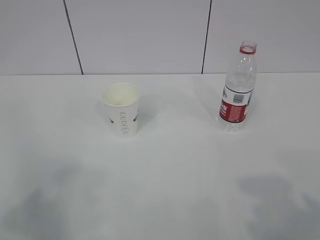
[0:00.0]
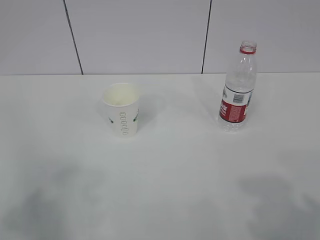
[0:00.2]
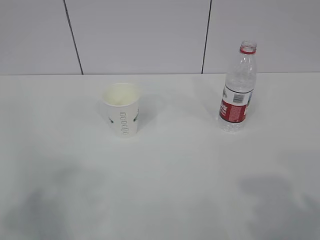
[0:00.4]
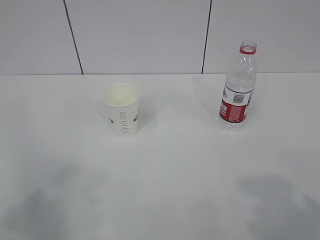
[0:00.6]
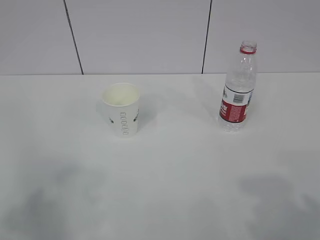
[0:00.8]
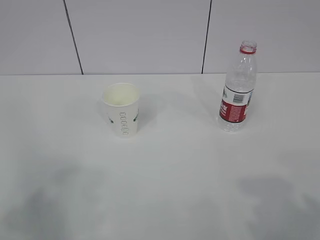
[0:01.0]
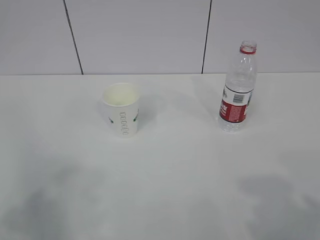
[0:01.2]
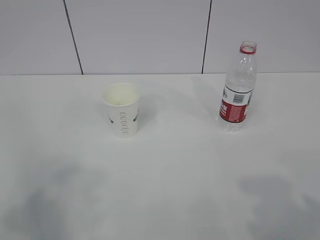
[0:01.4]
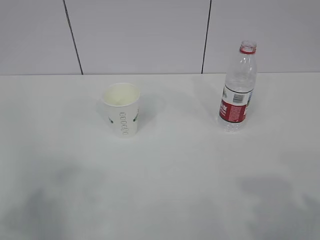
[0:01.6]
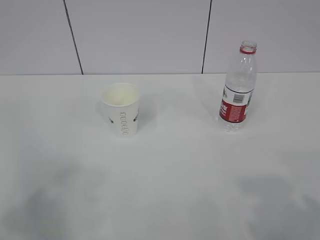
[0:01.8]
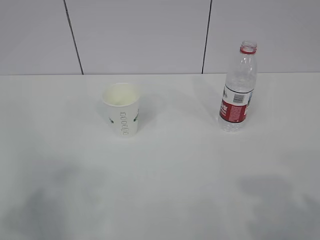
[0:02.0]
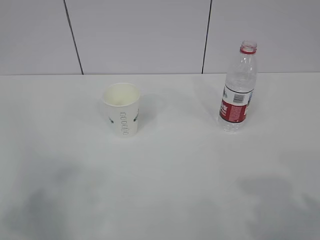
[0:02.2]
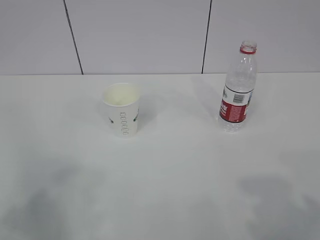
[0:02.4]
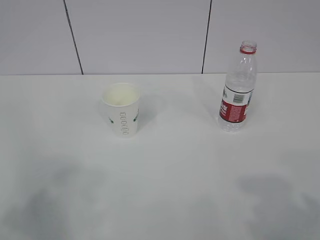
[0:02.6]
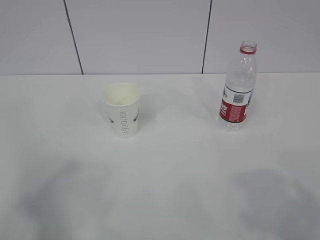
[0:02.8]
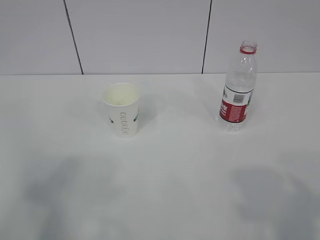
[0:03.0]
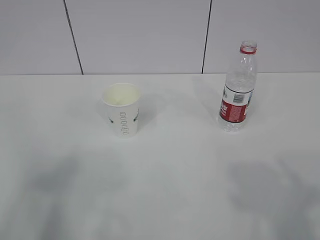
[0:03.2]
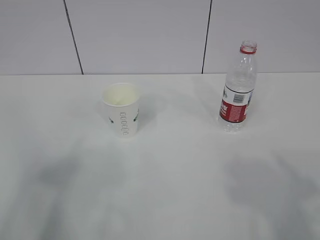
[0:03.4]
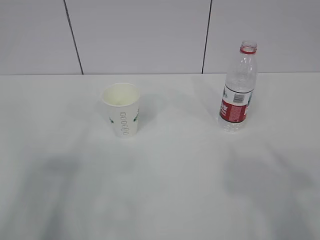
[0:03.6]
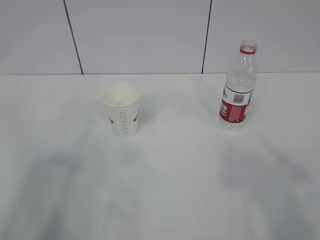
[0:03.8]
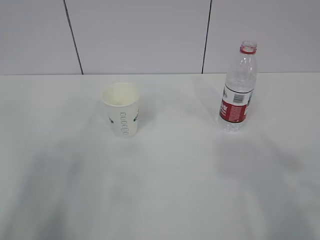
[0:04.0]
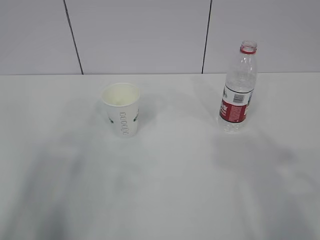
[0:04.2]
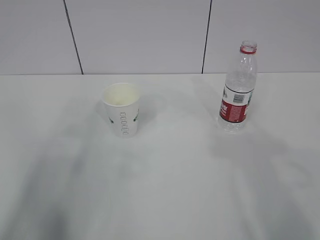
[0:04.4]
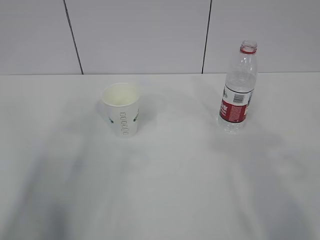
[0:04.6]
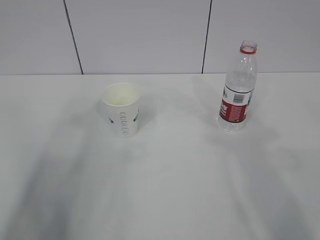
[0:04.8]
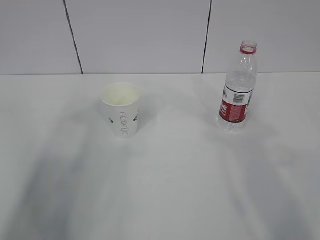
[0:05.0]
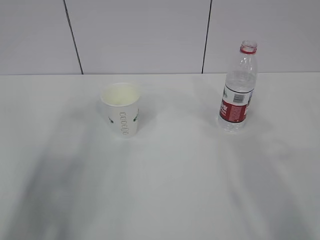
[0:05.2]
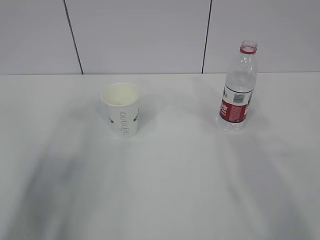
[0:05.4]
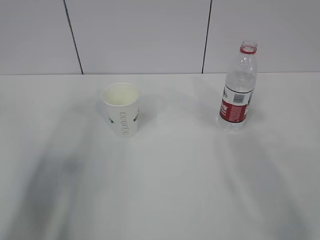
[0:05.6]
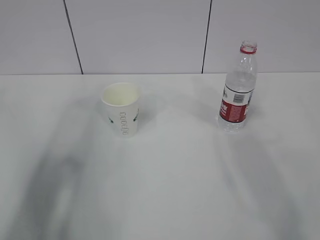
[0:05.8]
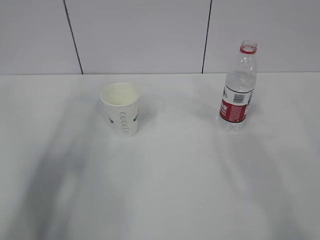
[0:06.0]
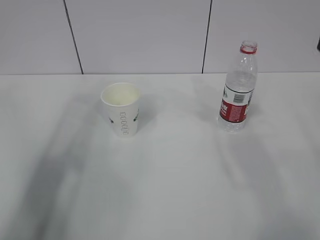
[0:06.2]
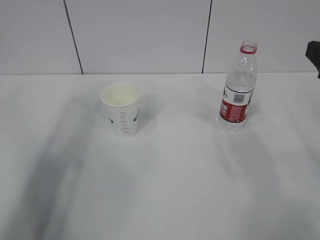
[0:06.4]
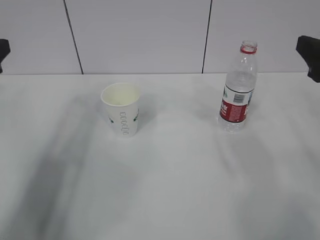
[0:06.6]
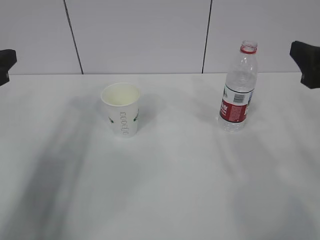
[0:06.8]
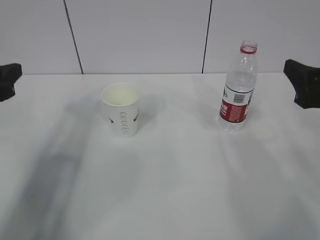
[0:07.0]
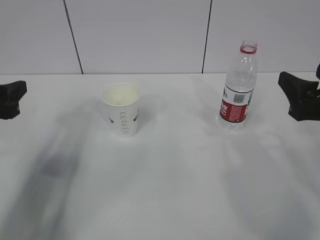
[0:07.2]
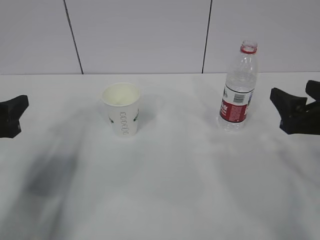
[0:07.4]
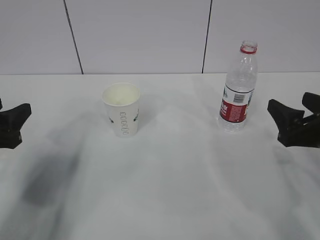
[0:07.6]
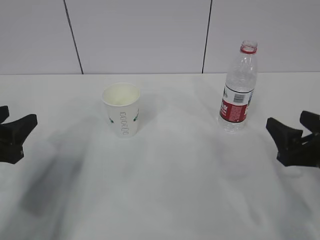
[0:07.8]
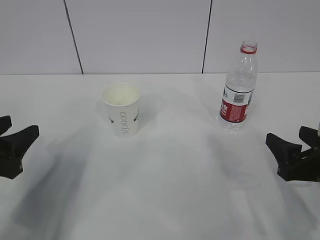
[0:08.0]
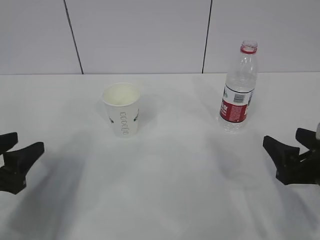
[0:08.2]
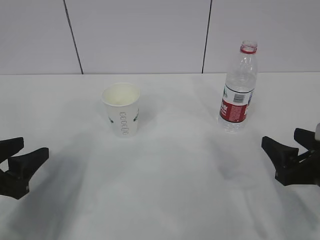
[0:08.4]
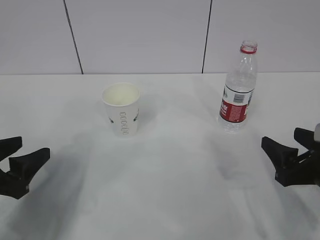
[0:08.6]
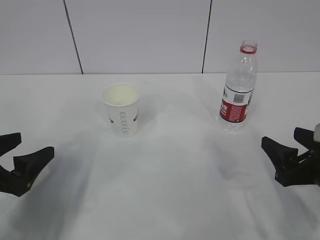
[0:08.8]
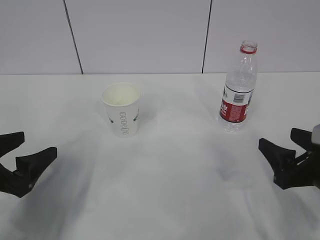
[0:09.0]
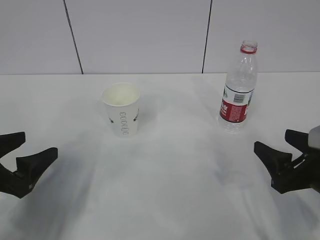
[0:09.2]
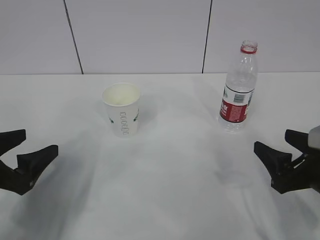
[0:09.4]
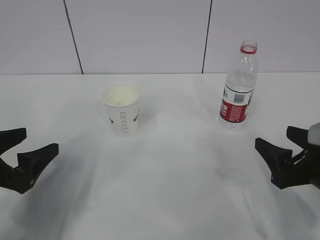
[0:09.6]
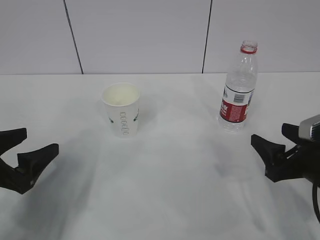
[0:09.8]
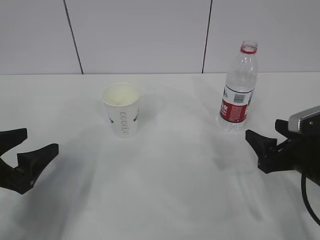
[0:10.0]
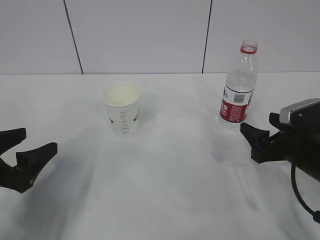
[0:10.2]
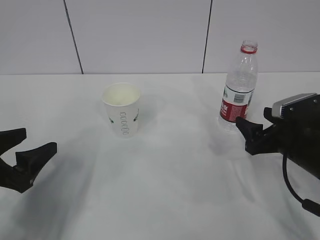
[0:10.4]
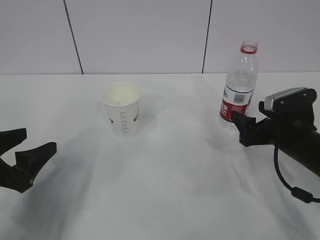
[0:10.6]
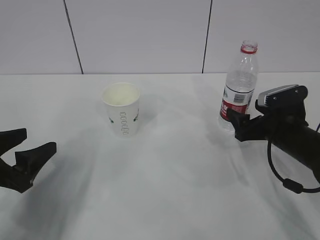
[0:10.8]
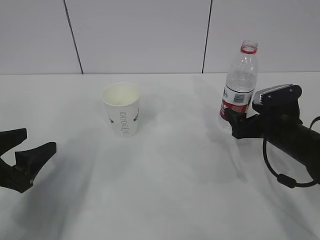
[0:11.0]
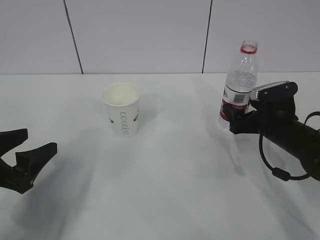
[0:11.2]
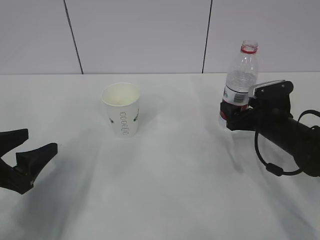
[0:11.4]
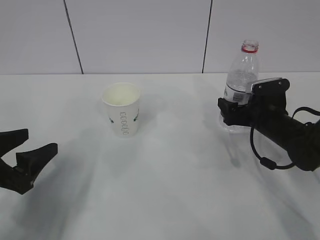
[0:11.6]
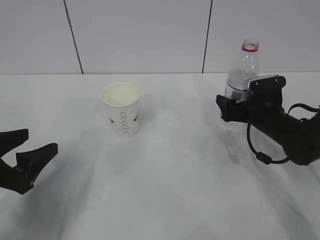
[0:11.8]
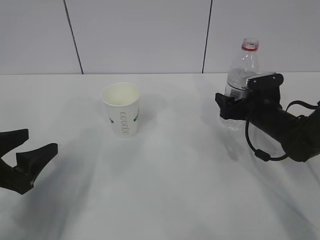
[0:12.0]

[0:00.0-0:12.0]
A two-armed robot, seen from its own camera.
0:04.4 to 0:06.0: The left gripper is displaced forward by approximately 15 cm.
0:06.0 to 0:07.6: Both grippers move downward, some 15 cm.
0:07.6 to 0:09.0: The right gripper changes place by approximately 5 cm. Meanwhile the left gripper changes place by some 5 cm, and opens up.
0:09.0 to 0:10.4: The right gripper moves forward, roughly 10 cm.
0:10.4 to 0:12.0: The right gripper moves forward, some 10 cm.

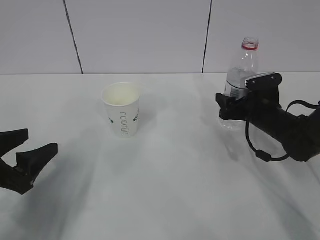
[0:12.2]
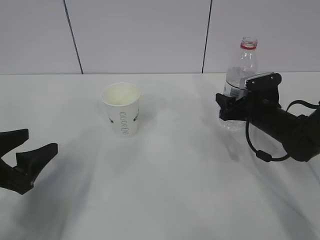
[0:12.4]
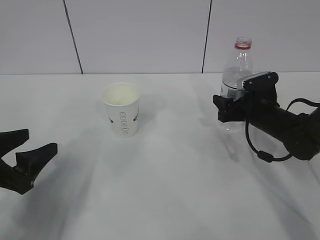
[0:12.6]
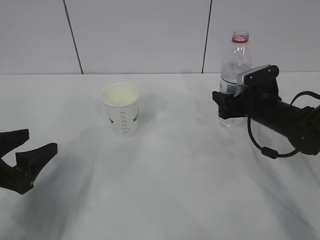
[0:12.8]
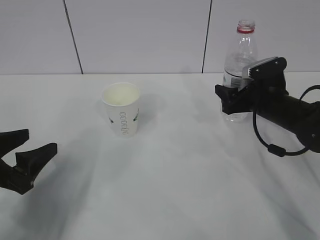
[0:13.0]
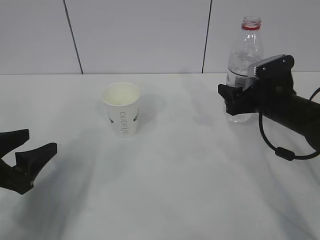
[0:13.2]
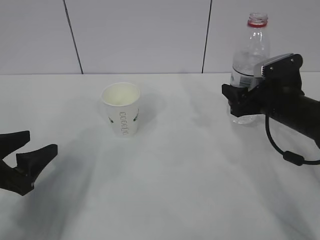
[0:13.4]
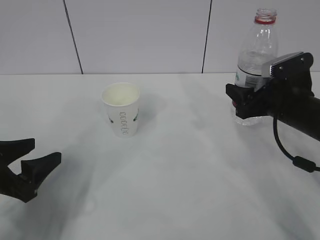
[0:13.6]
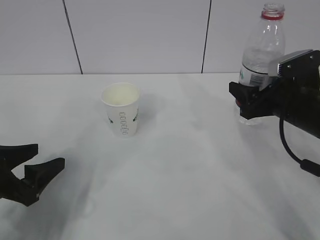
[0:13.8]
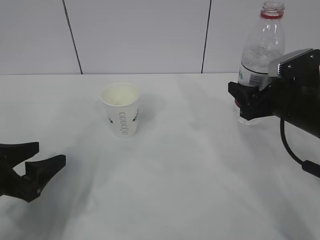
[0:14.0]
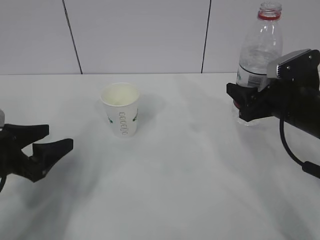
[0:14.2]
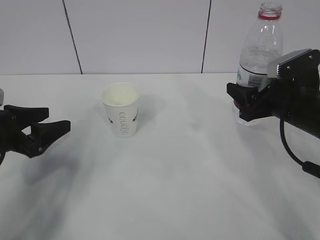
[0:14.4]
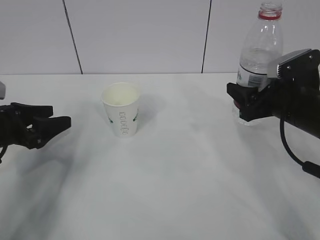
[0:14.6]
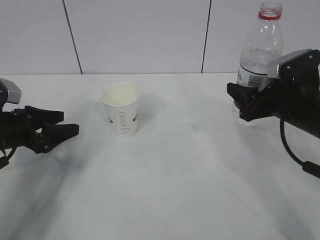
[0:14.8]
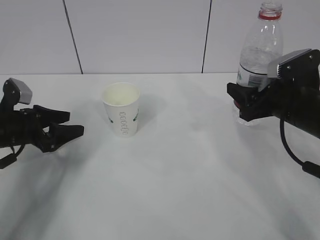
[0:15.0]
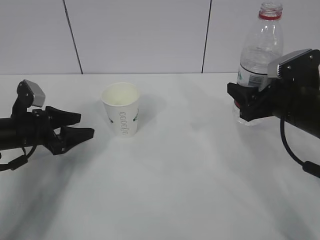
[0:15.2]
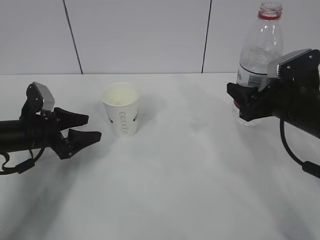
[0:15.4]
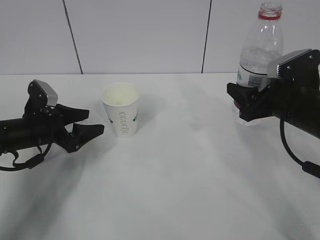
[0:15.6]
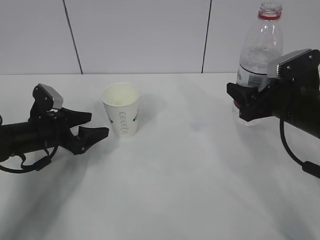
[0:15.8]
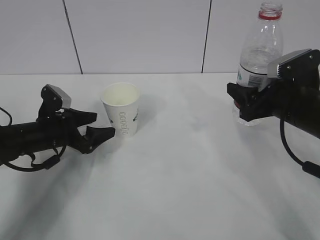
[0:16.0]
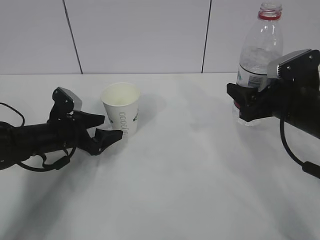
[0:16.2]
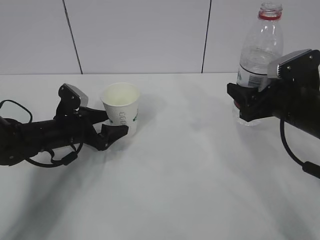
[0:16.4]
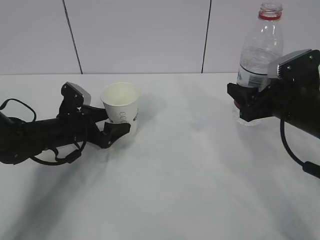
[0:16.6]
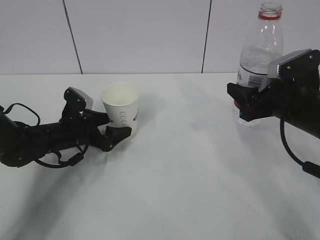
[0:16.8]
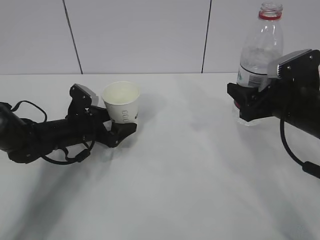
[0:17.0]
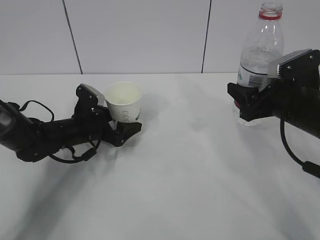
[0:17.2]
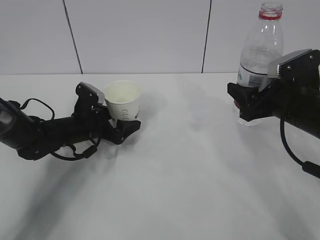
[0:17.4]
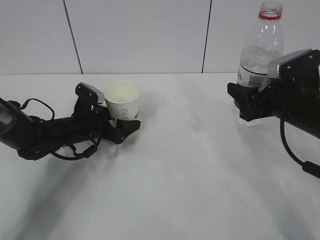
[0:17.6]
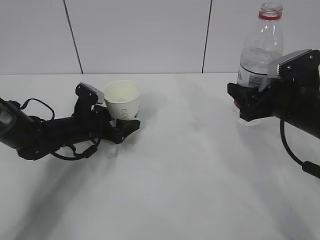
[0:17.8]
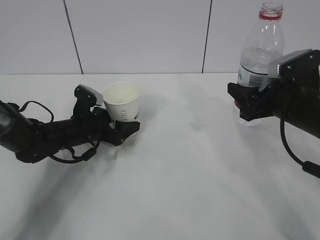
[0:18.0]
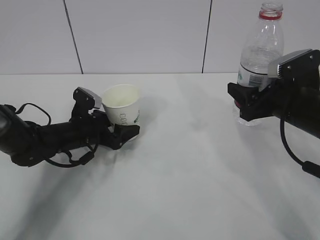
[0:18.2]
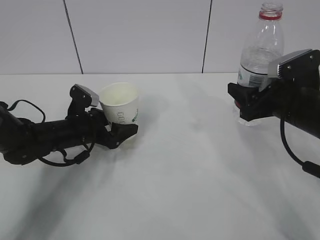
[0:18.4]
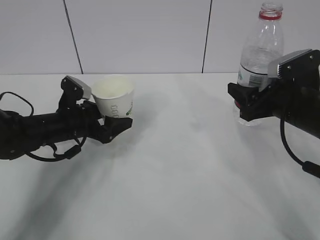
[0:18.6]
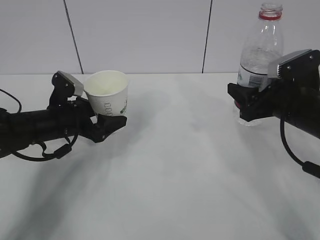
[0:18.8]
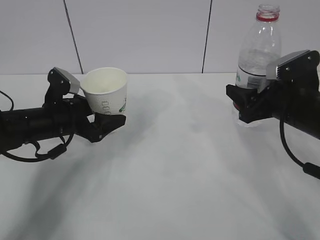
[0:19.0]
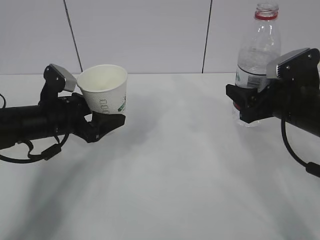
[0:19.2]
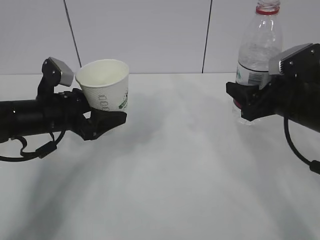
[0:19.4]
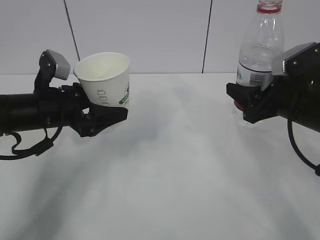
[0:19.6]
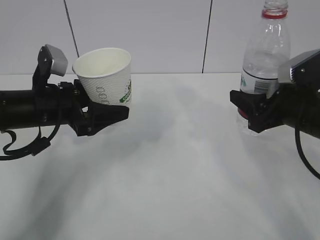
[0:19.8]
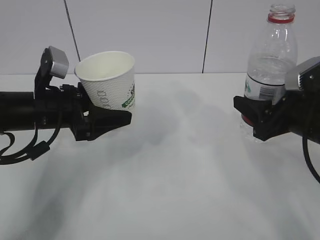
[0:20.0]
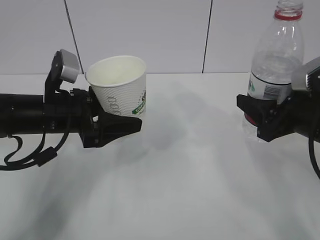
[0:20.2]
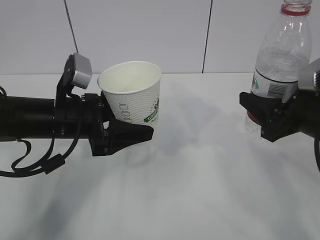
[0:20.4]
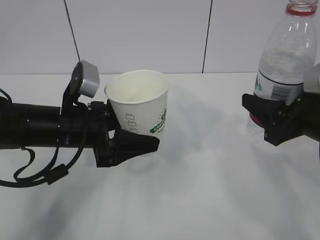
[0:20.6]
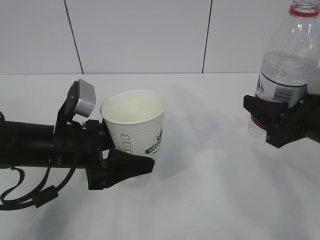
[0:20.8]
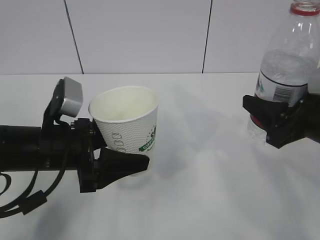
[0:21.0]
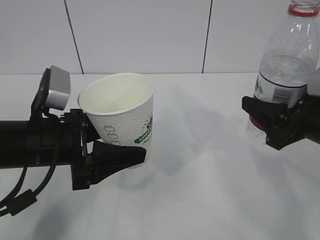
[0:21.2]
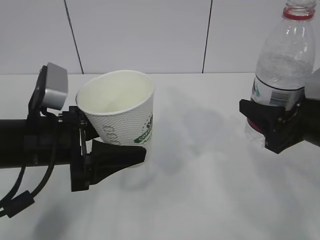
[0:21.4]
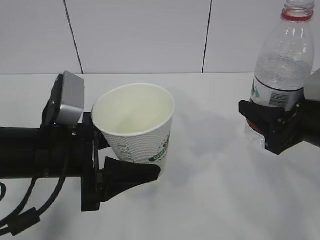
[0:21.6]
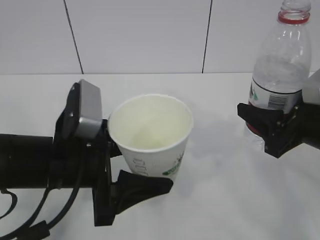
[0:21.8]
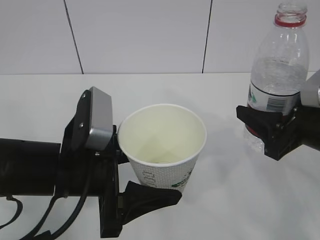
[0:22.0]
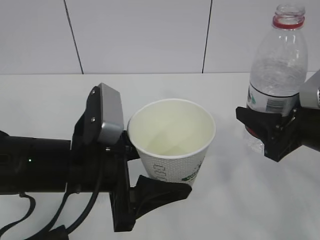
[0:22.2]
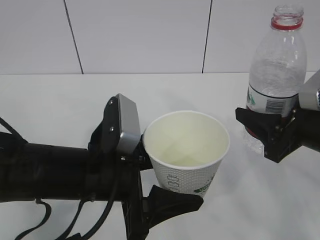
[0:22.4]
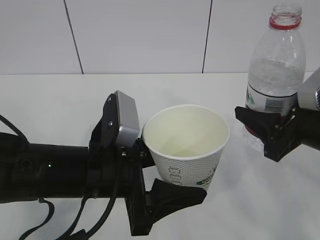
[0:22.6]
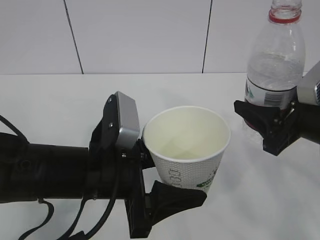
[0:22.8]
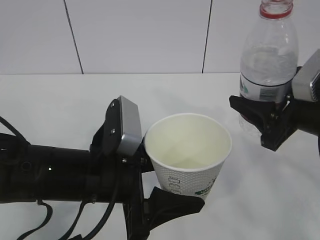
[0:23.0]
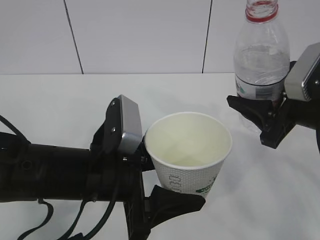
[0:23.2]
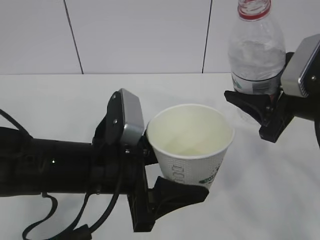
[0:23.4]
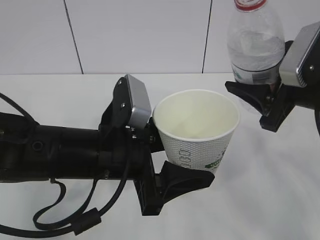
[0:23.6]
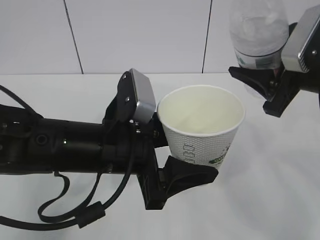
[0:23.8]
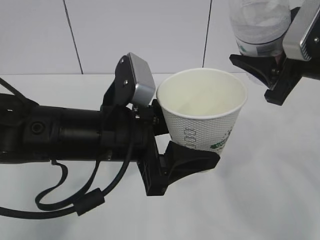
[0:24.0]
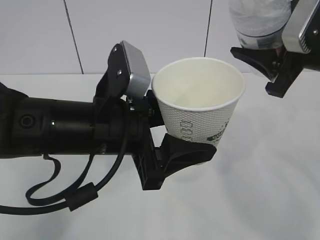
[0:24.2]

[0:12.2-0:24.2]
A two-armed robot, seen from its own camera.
0:12.2 to 0:13.8: The right gripper heads upward and backward, covering about 15 cm.
0:13.8 to 0:15.2: The left gripper travels forward by some 15 cm.
0:15.2 to 0:16.6: The left gripper shifts approximately 10 cm to the right, and opens.
0:16.6 to 0:18.2: The left gripper closes its fingers.
0:18.2 to 0:19.8: The left gripper moves upward and backward, roughly 15 cm.
0:19.8 to 0:21.2: The right gripper heads backward, covering approximately 5 cm; the left gripper moves backward, approximately 10 cm.
0:21.2 to 0:22.6: The left gripper is displaced to the right by some 10 cm.
0:22.6 to 0:24.2: The right gripper heads upward, covering roughly 10 cm. The left gripper heads upward, covering roughly 5 cm.
